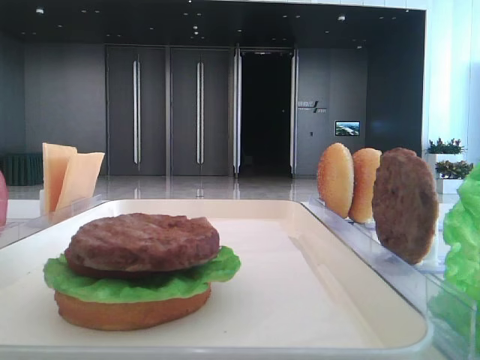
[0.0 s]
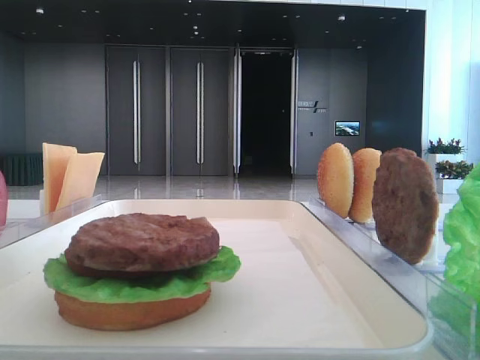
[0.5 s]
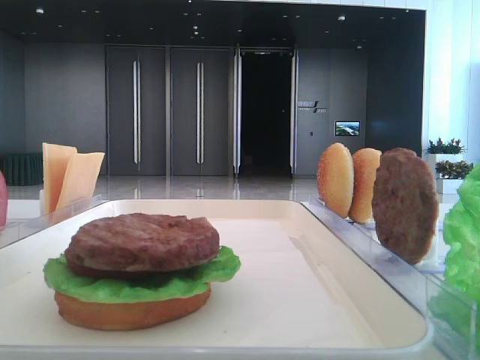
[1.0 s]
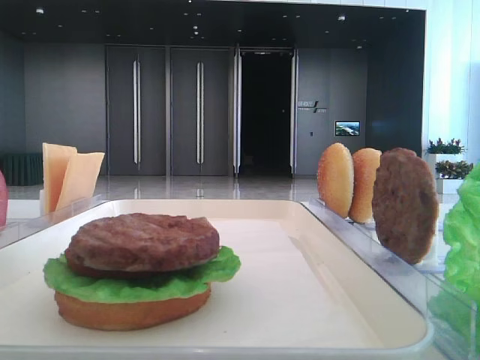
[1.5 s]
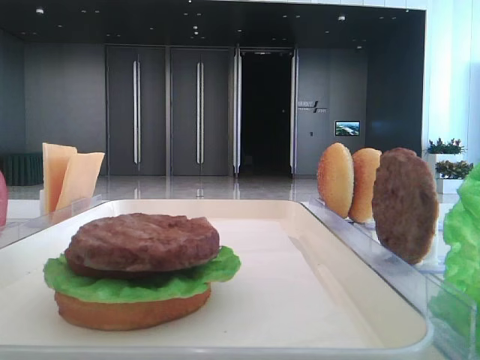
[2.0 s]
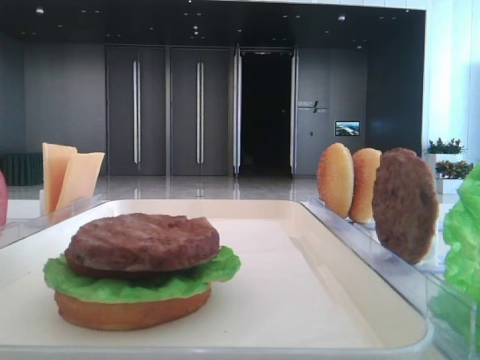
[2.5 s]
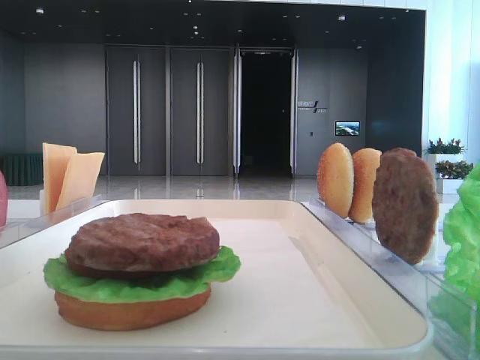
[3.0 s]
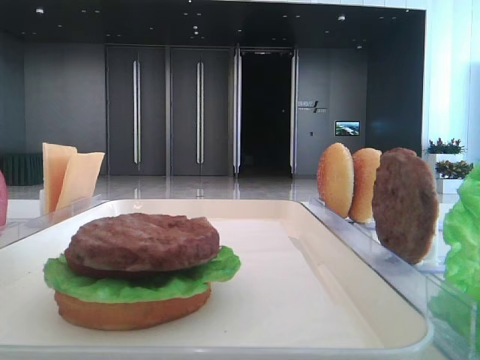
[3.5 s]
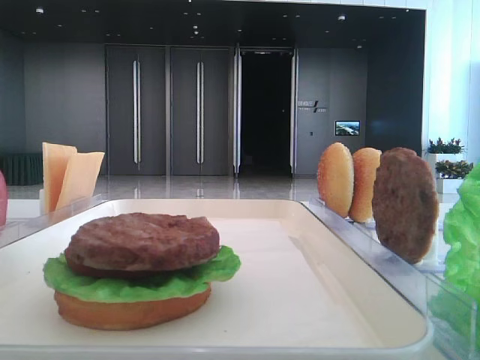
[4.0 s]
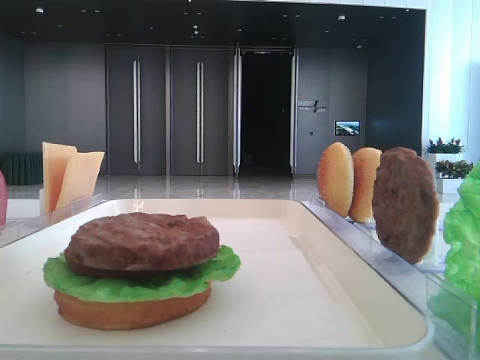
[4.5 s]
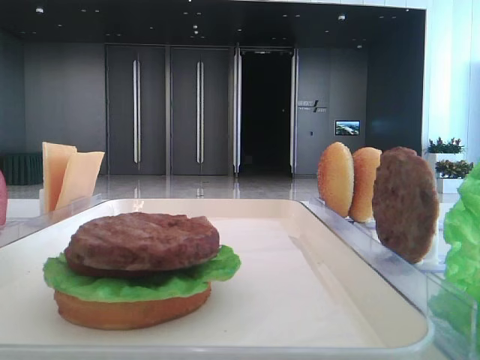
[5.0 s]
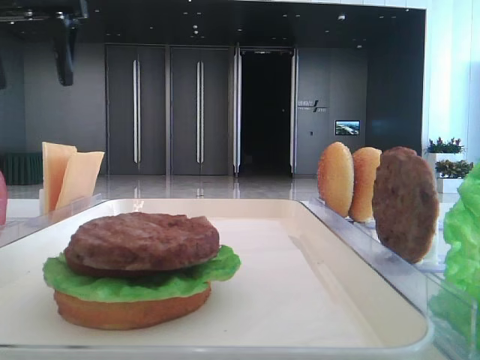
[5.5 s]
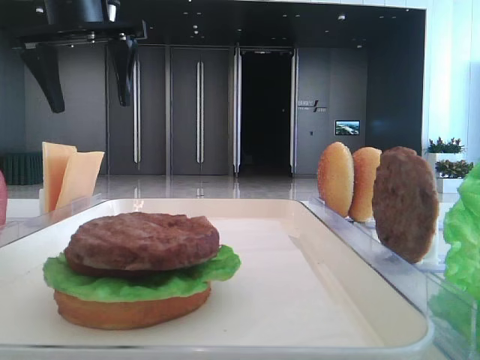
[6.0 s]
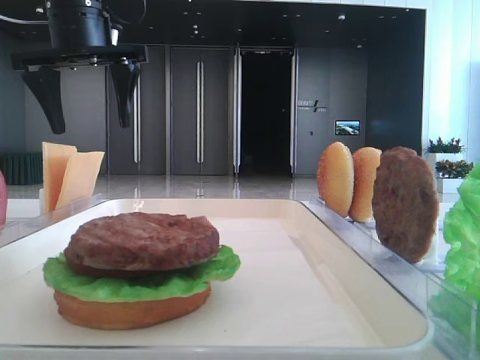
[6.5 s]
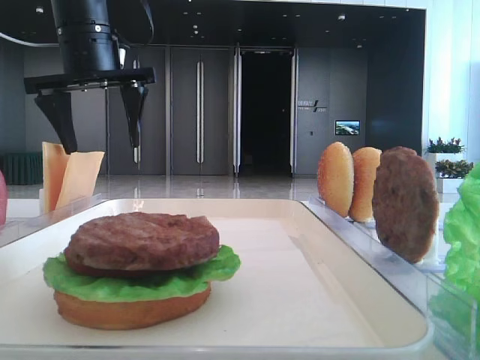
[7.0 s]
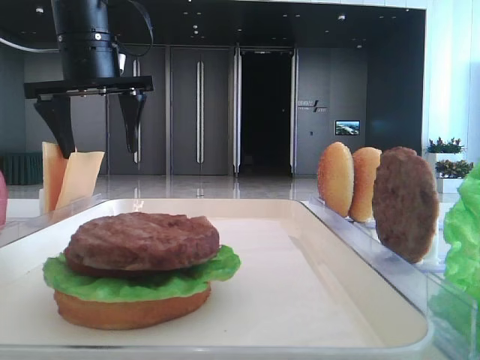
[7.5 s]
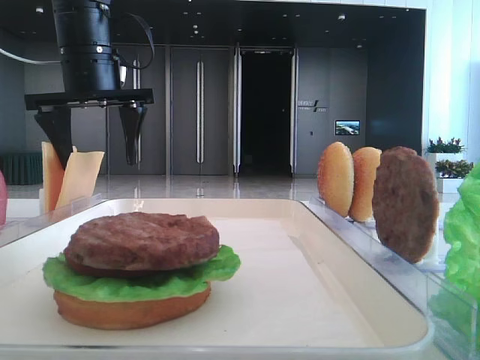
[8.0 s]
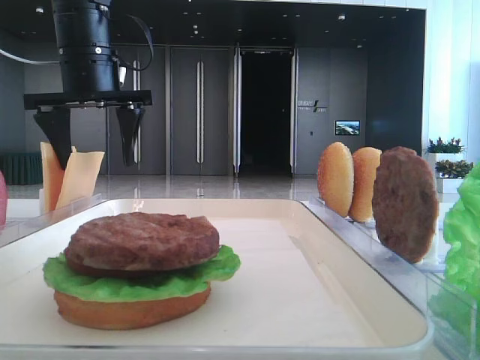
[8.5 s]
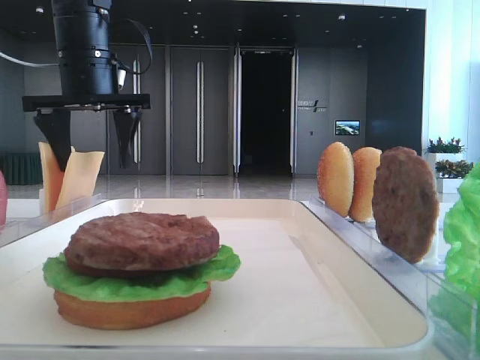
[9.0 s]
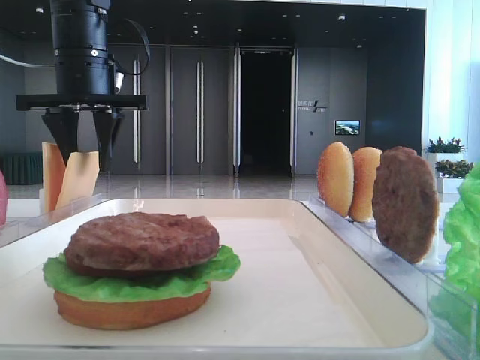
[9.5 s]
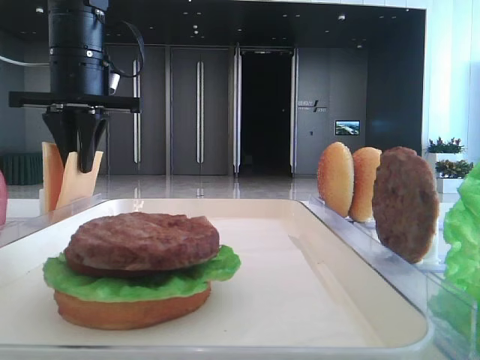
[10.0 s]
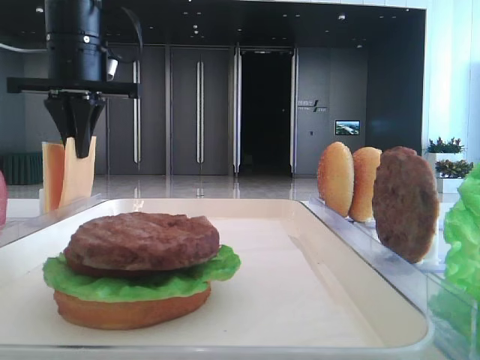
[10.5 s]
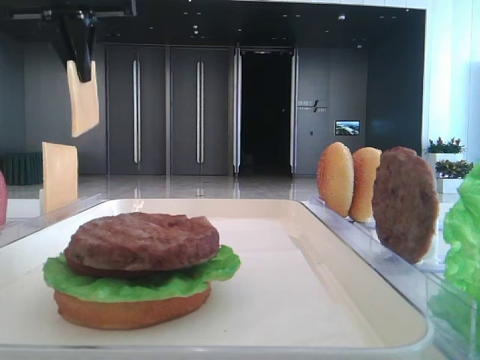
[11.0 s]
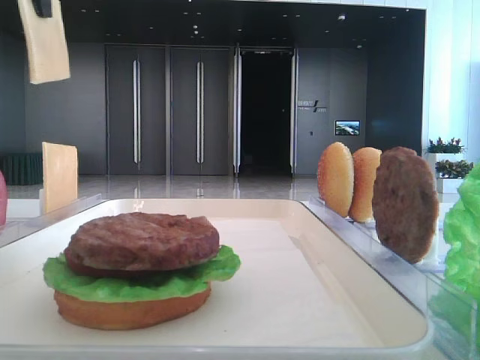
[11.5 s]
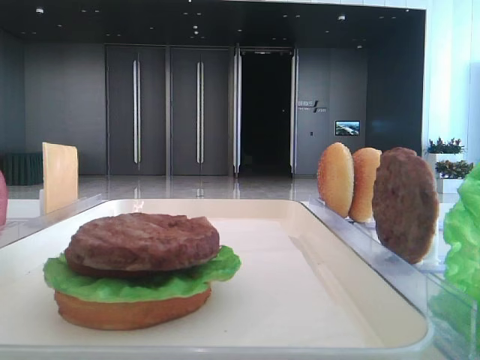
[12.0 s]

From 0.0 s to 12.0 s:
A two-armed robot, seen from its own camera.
Step, from 0.0 s to 10.0 s: Pick up the cheese slice with the left hand.
From 4.0 s to 6.0 s: The left gripper moves forward and to the right, approximately 30 cm.
From 6.0 s to 8.0 s: The left gripper travels downward by some 5 cm.
From 8.0 s to 10.0 s: The left gripper closes.
From 10.0 s to 12.0 s: The left gripper goes about 30 cm backward and upward.

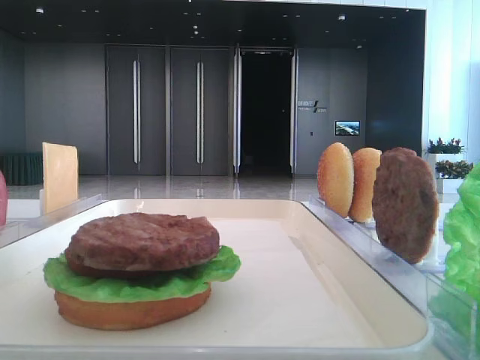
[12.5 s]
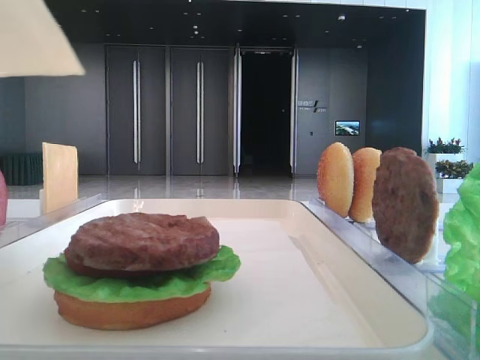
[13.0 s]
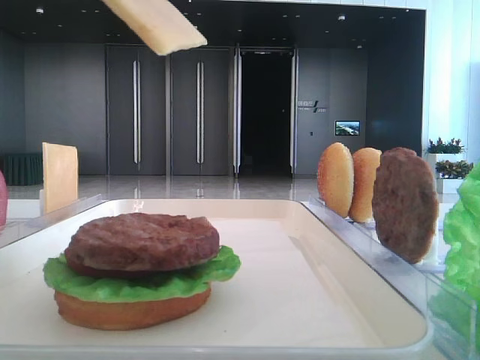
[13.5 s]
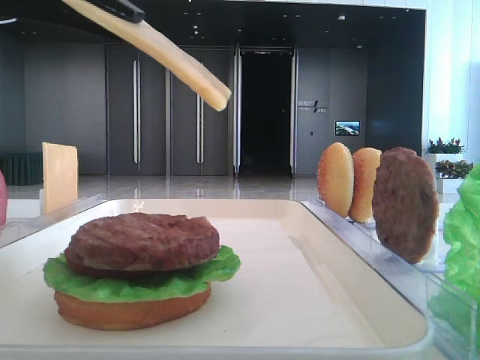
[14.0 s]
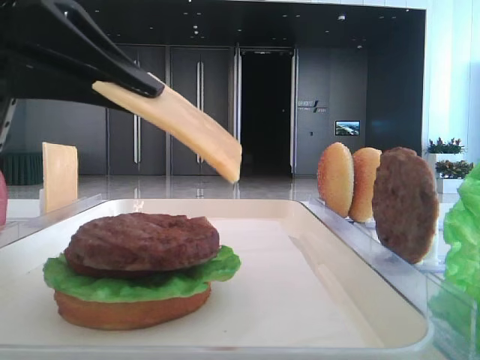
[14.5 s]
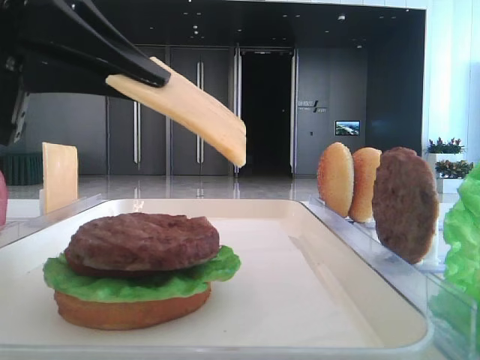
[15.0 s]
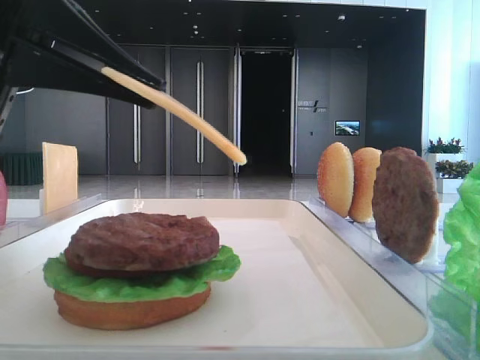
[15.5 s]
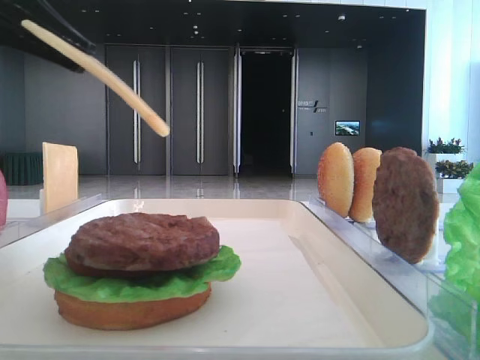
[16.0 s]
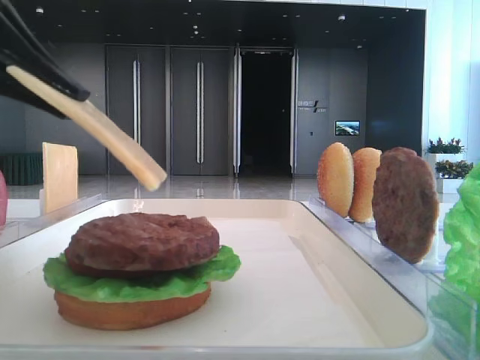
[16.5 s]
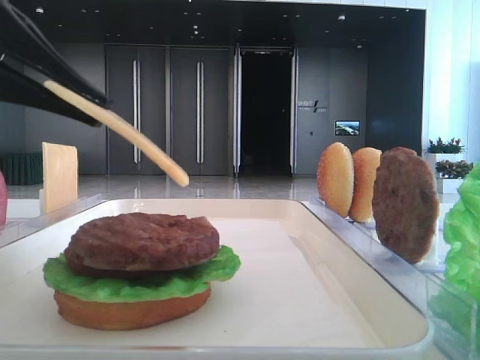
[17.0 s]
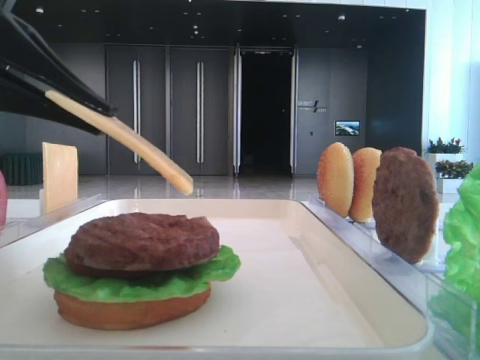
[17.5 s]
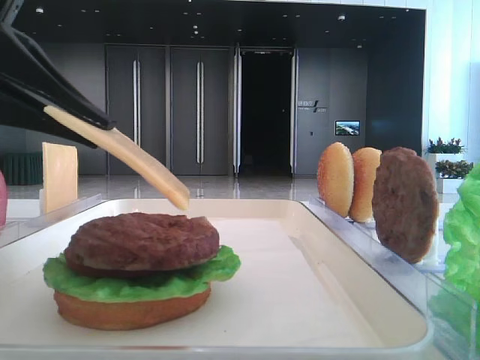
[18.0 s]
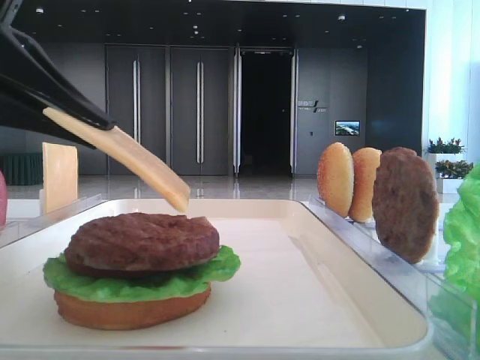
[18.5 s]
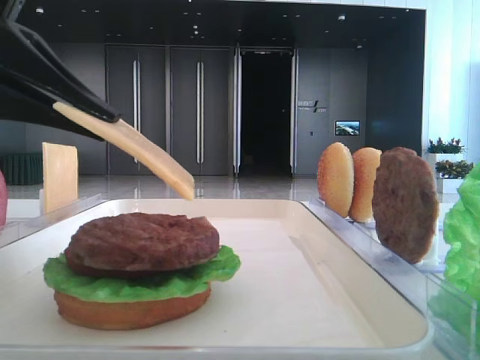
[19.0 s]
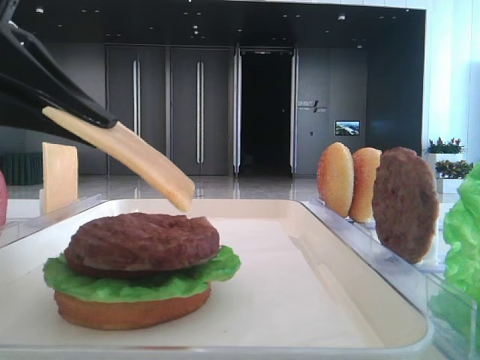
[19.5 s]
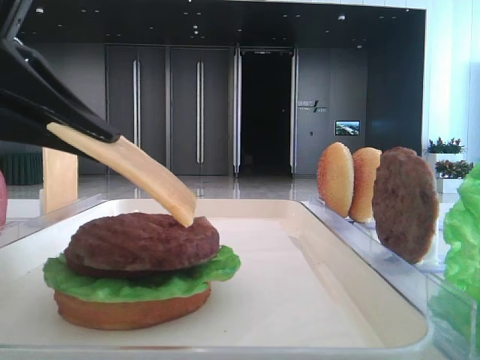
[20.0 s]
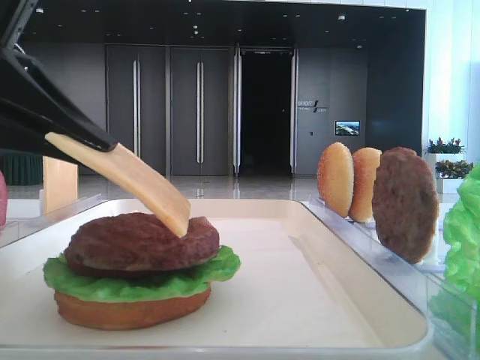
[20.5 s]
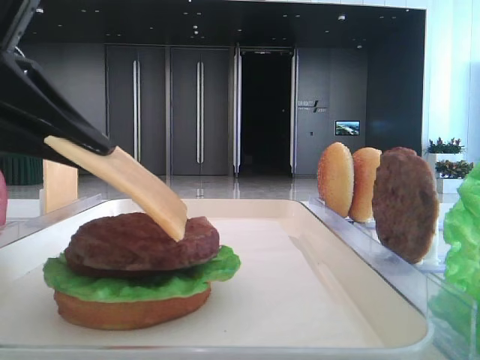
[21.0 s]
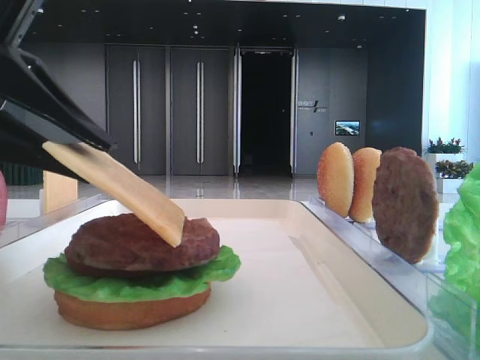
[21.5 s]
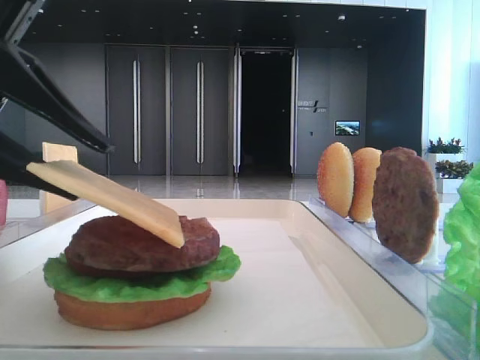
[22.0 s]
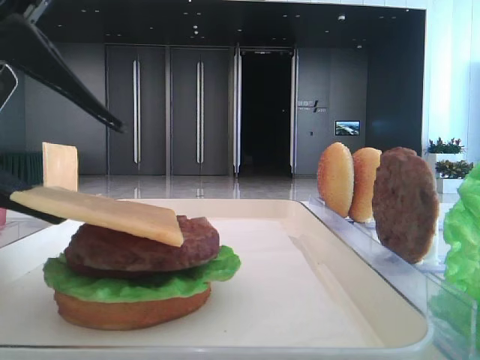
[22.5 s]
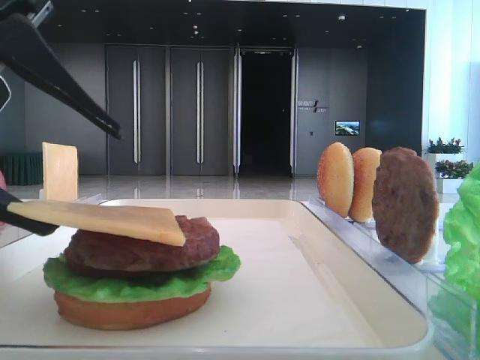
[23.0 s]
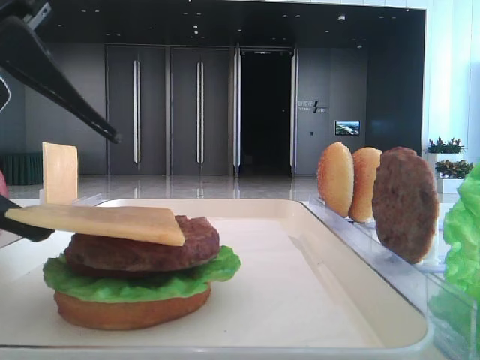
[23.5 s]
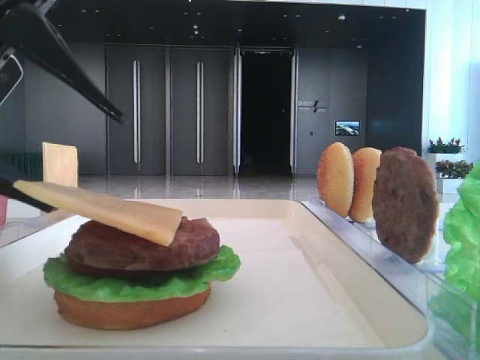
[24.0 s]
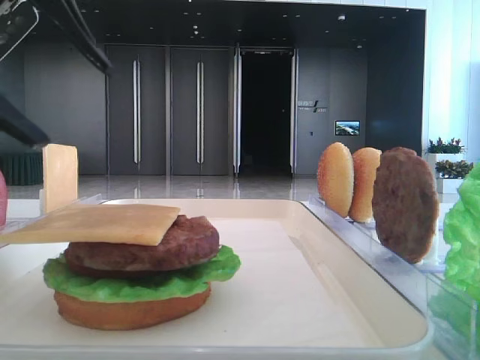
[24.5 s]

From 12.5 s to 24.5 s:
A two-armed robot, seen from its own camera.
Step, from 12.5 s to 24.0 s: Place the cheese slice on the patty with the left hand.
From 12.5 s to 14.5 s: The left gripper shifts approximately 15 cm downward and to the right.
From 14.5 s to 18.5 s: There are only small adjustments of the grippers.
From 18.5 s to 20.5 s: Neither gripper changes place.
From 20.5 s to 22.5 s: The left gripper opens up.
From 22.5 s to 24.5 s: The left gripper shifts about 5 cm upward.

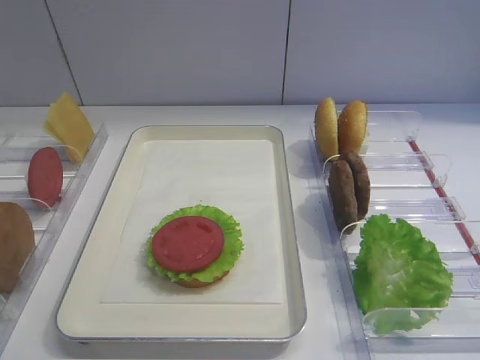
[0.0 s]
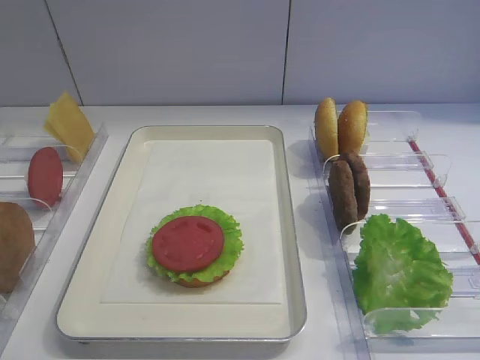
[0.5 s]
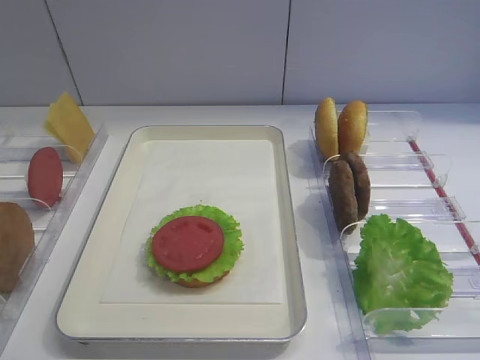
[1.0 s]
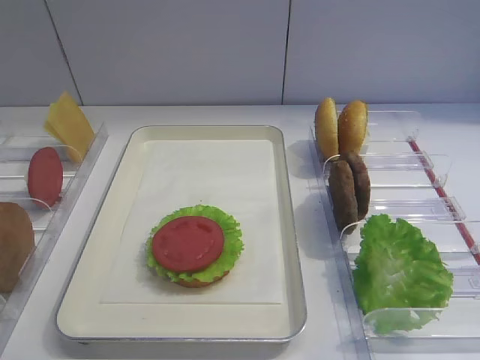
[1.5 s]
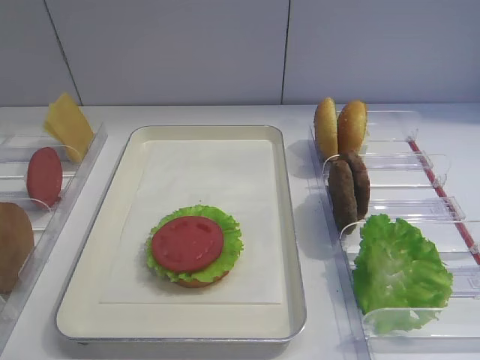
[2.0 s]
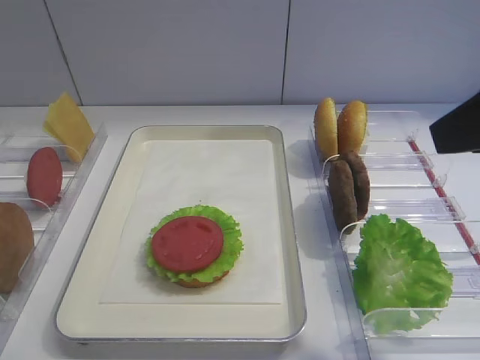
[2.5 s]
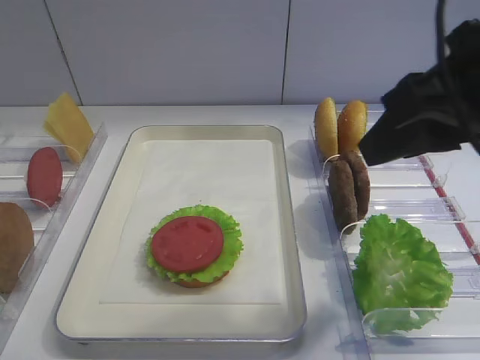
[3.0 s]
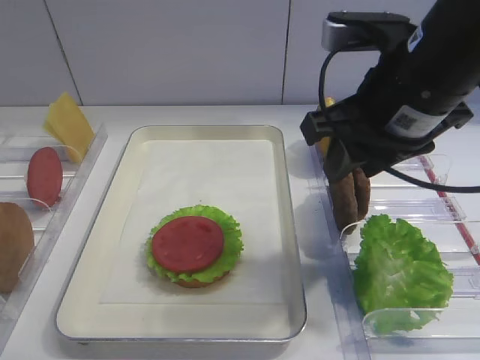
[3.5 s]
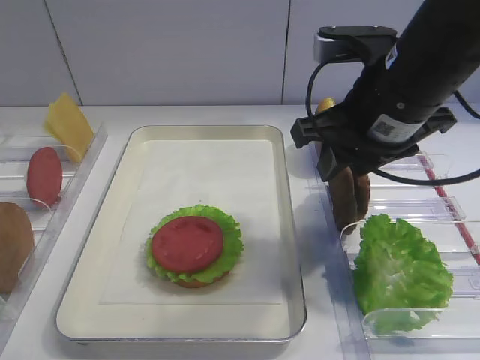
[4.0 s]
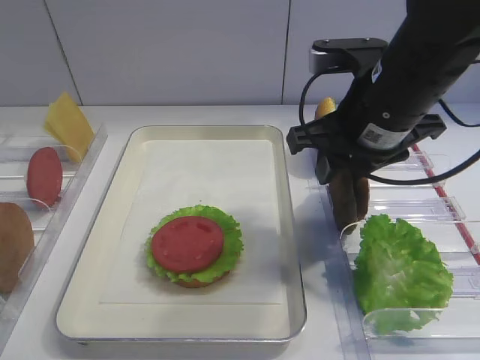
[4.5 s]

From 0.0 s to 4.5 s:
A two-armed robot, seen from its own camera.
From 2.0 s to 4.5 s: The right gripper shifts approximately 25 cm forward, to the left and downward.
